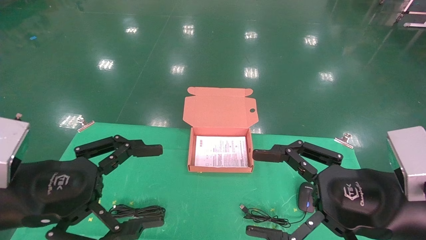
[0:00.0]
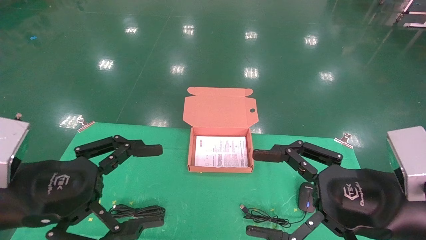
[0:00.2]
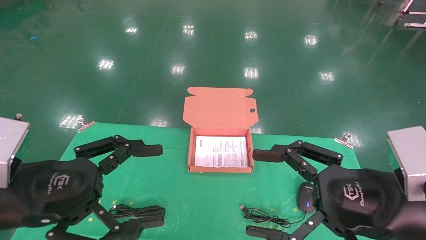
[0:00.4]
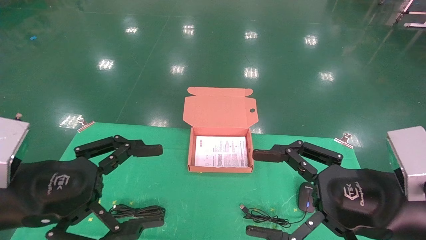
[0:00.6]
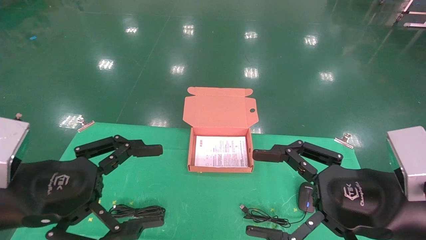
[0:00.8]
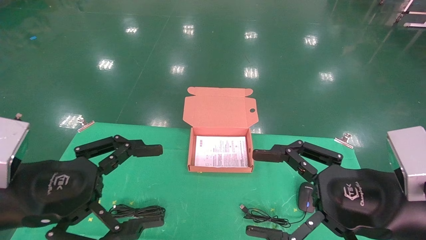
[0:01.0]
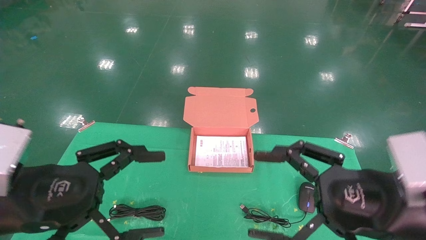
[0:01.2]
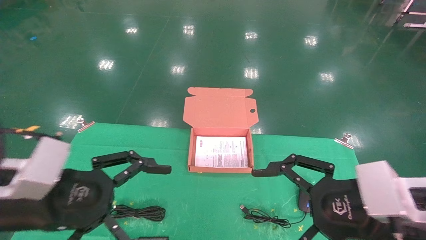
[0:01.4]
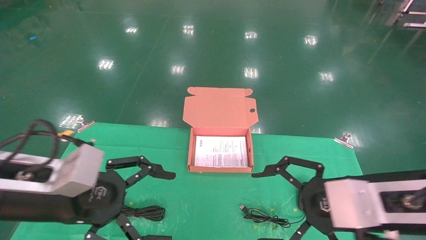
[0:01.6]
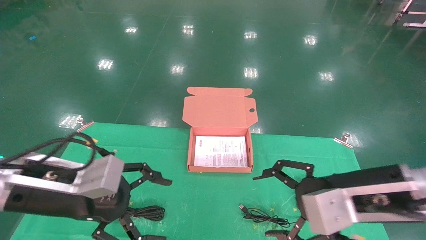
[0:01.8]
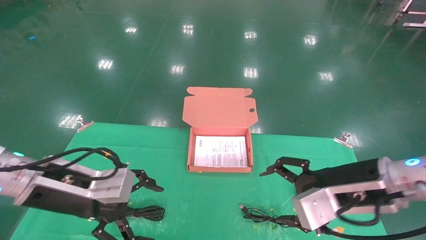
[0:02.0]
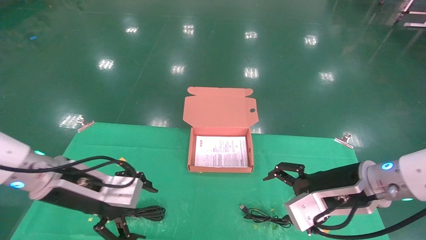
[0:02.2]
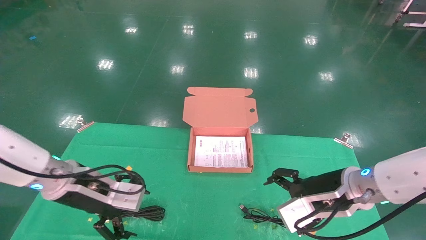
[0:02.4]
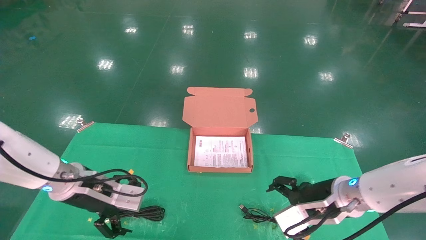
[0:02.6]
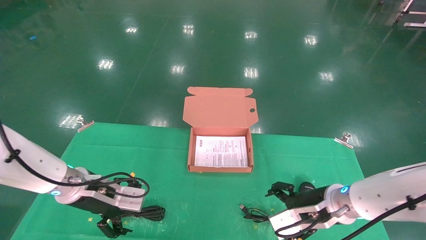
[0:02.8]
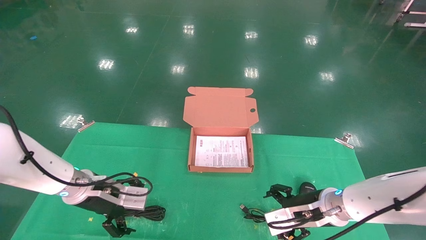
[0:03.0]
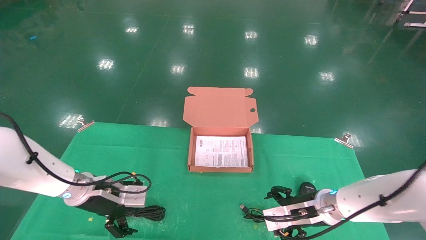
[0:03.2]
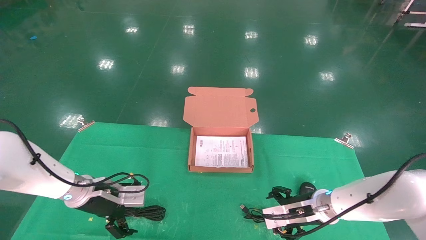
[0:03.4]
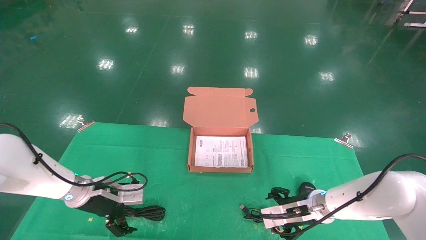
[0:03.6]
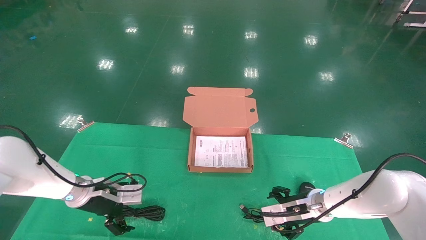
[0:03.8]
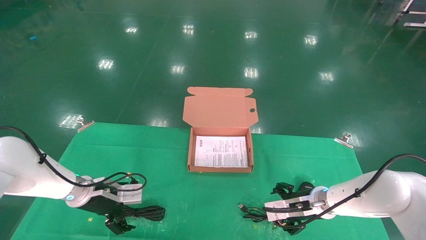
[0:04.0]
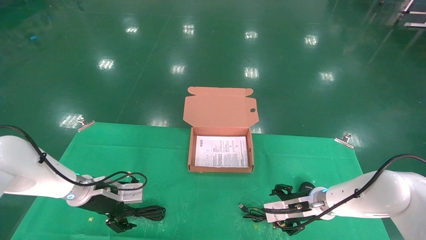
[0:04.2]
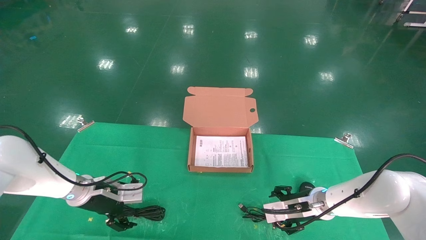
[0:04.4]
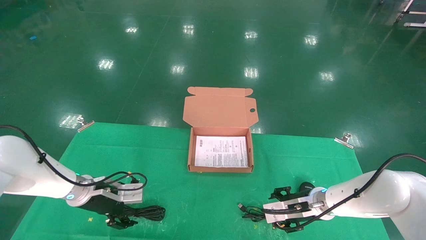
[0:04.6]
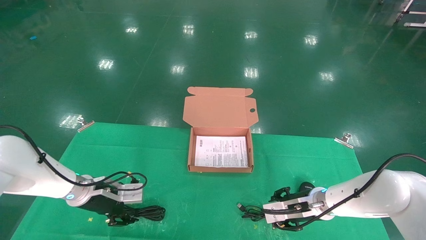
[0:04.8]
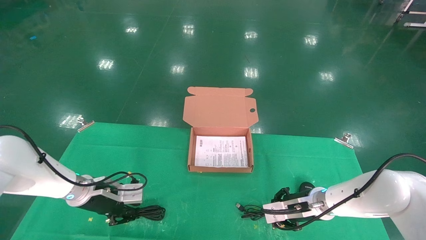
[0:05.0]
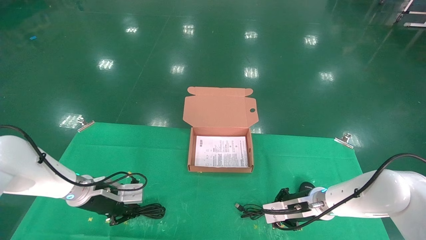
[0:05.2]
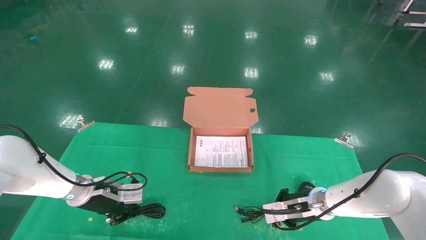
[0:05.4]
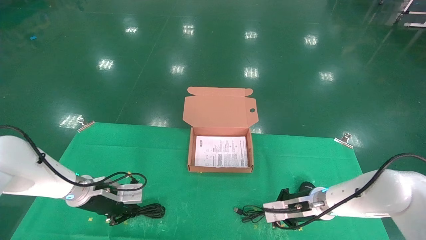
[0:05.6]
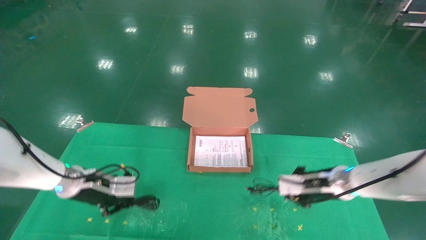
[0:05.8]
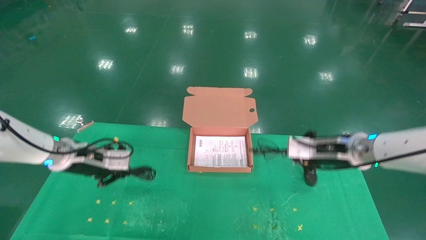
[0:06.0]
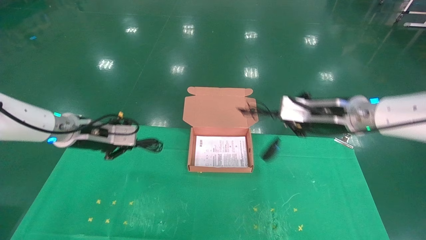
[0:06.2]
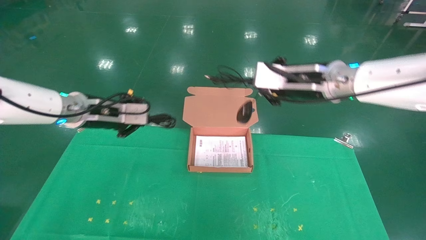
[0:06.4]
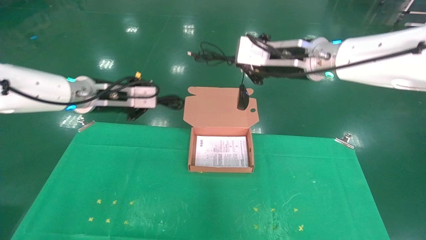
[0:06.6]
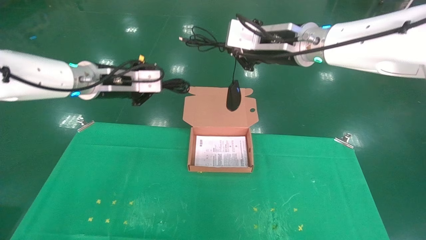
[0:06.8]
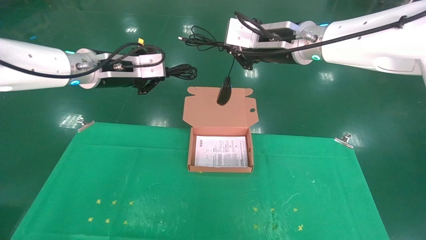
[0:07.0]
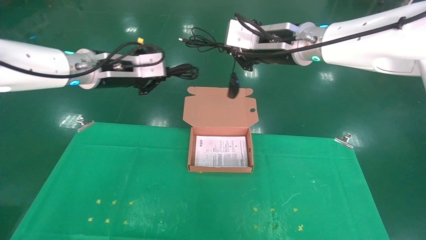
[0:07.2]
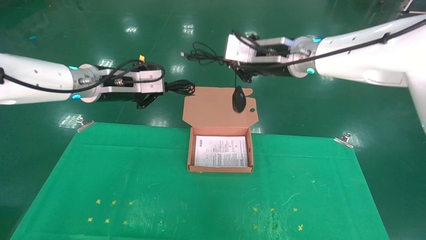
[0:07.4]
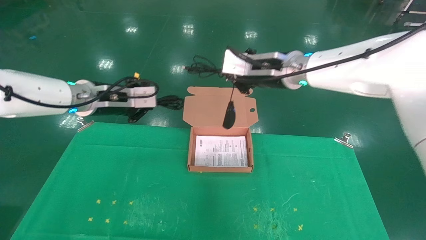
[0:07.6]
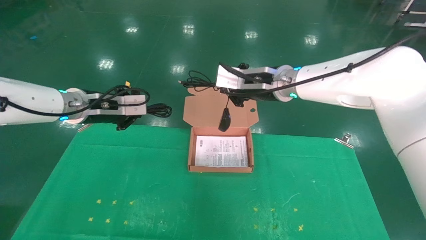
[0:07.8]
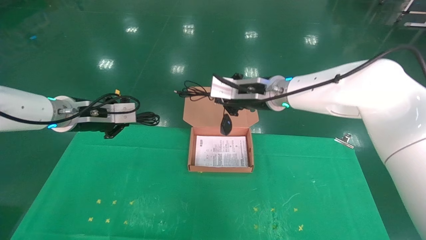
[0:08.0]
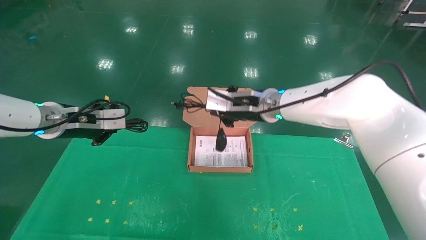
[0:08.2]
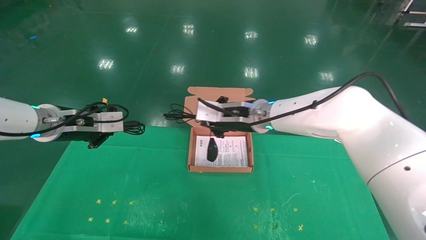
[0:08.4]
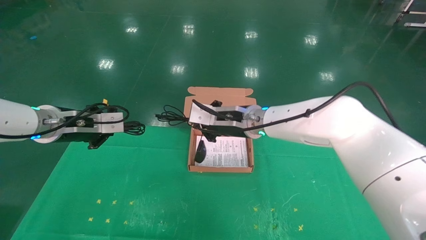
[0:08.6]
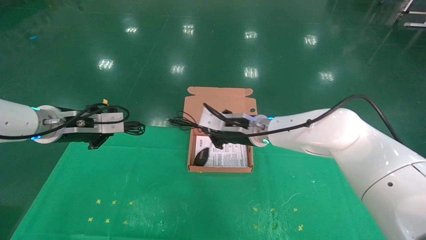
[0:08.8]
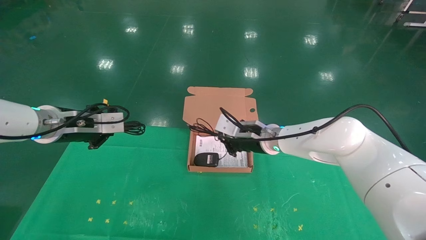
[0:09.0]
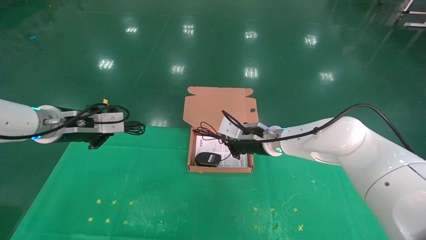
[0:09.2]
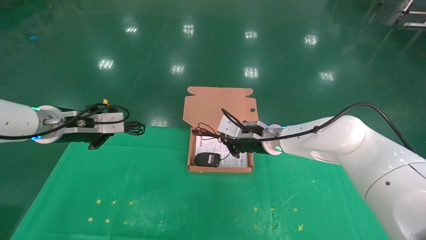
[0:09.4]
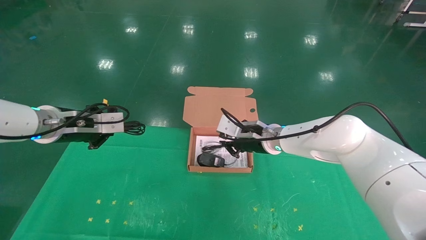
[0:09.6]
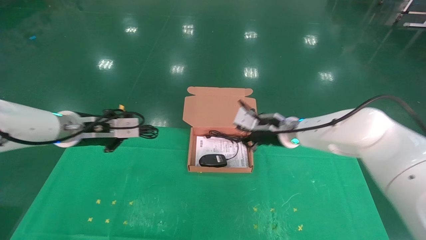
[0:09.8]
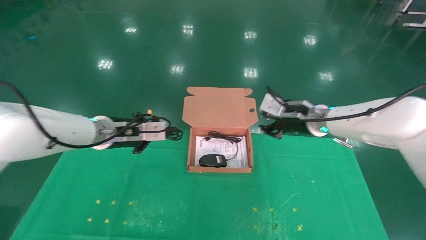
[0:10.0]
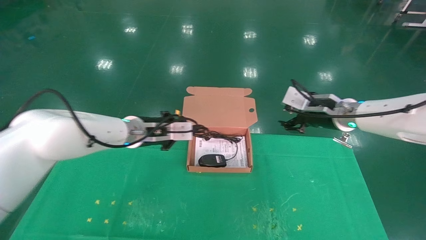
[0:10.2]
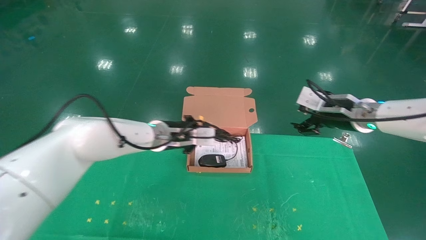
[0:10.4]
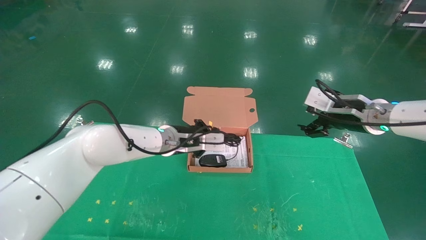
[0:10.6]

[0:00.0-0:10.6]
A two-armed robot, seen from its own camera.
Task of the whole recording: grasp data cable left put into box grasp mouse right put into box.
Step, 0:01.0 to 0:05.4: Grab and pick up both the mouse and power cord from the accessory packaging area at the same time.
0:01.6 to 0:03.0: Both grippers travel together forward and downward, roughly 20 cm.
0:03.0 to 0:04.6: Both grippers move forward and downward, roughly 10 cm.
0:04.6 to 0:06.0: Both grippers move upward, roughly 15 cm. The left gripper closes. Meanwhile the right gripper closes.
0:06.0 to 0:07.6: The right gripper is displaced to the left and upward by roughly 15 cm. Meanwhile the left gripper travels upward by approximately 10 cm.
0:07.6 to 0:09.0: The left gripper moves to the left, roughly 5 cm. The right gripper goes about 15 cm downward.
0:09.0 to 0:10.6: The two grippers go some 20 cm to the right. The right gripper opens.

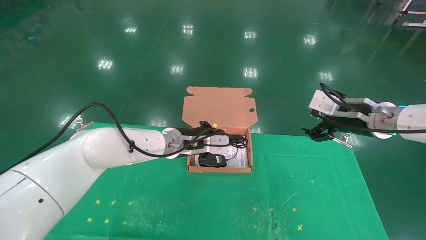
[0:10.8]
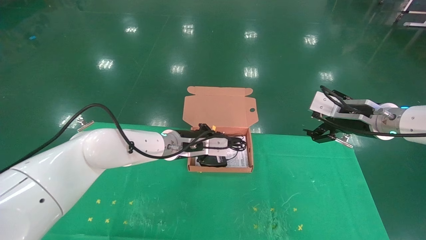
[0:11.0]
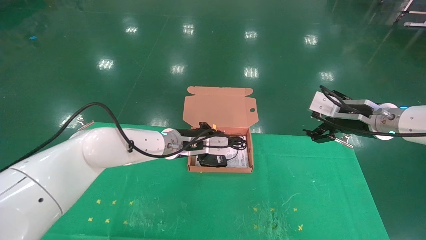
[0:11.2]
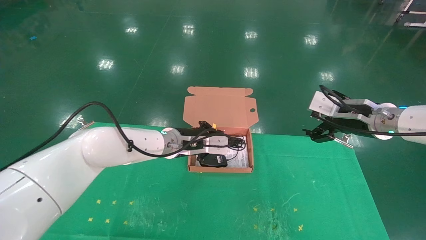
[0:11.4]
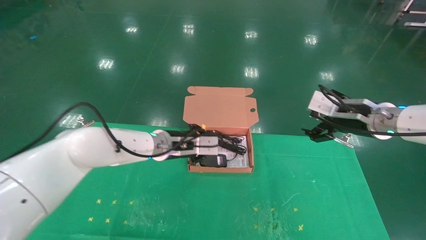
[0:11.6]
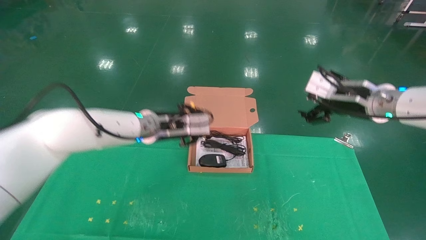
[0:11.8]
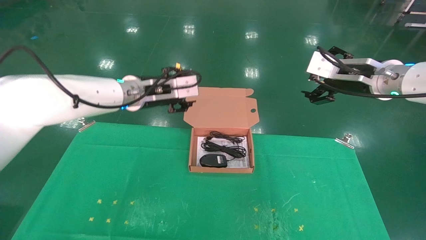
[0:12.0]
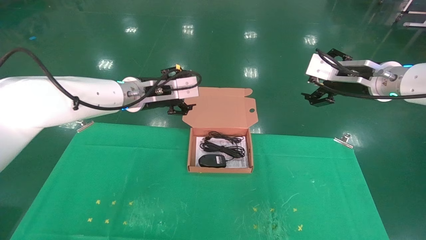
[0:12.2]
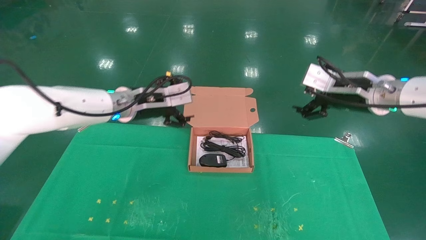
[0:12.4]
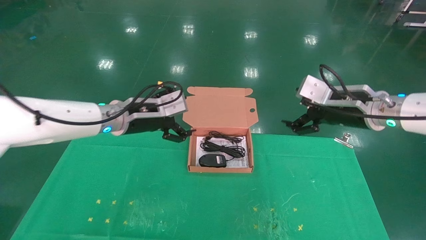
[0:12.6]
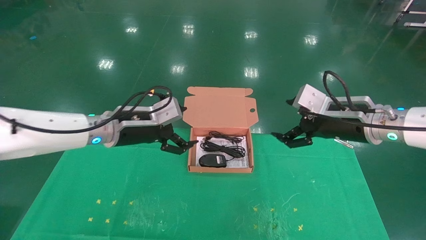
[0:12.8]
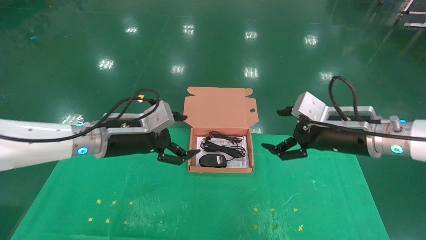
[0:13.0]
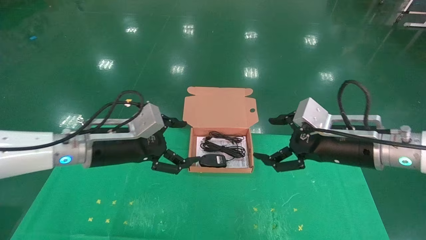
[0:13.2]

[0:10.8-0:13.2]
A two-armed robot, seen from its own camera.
Task of the whole recording: grasp data cable left put into box grasp mouse right put into box.
0:10.8 to 0:12.0: The left gripper heads upward and to the left, covering some 15 cm, and opens its fingers. Meanwhile the right gripper shifts some 5 cm upward.
0:12.0 to 0:13.2: The left gripper travels backward, downward and to the left by roughly 15 cm, and opens its fingers. Meanwhile the right gripper is displaced downward and backward by about 10 cm.

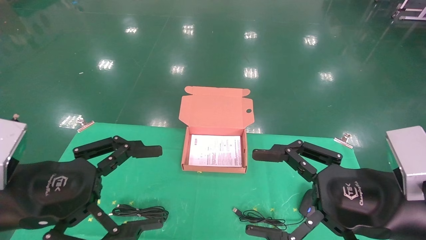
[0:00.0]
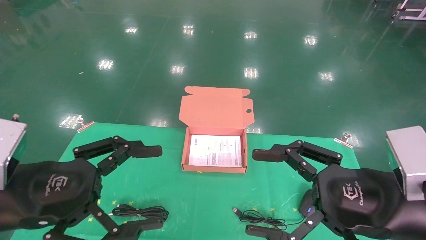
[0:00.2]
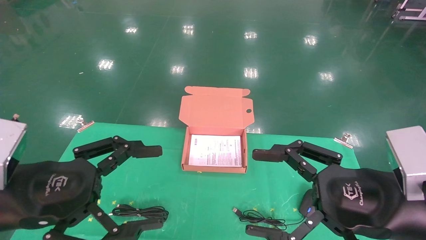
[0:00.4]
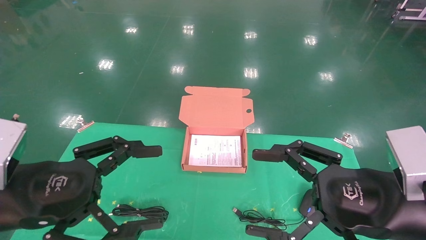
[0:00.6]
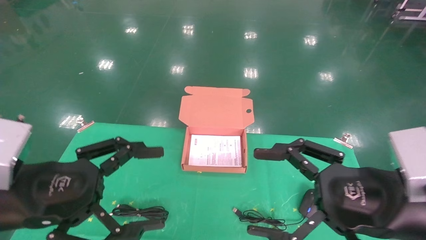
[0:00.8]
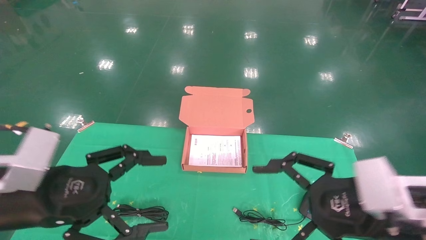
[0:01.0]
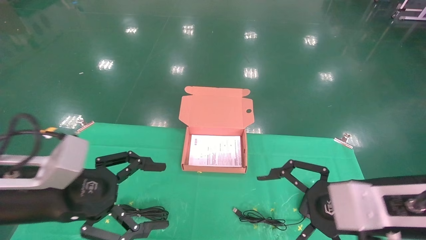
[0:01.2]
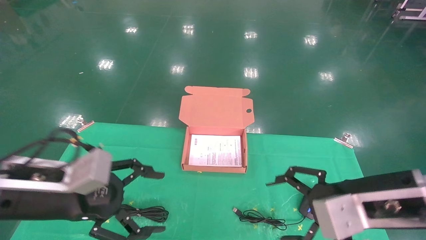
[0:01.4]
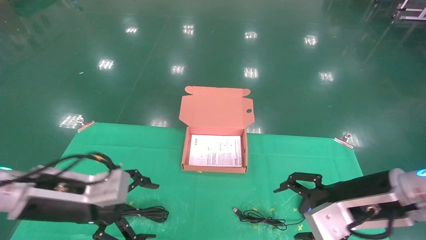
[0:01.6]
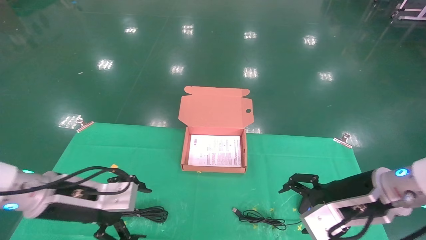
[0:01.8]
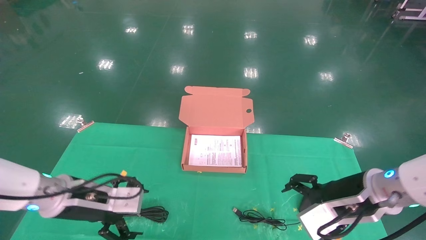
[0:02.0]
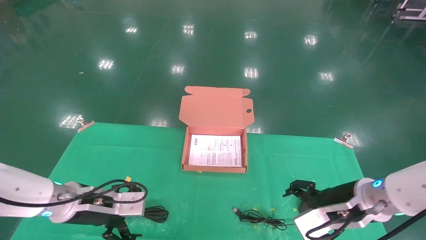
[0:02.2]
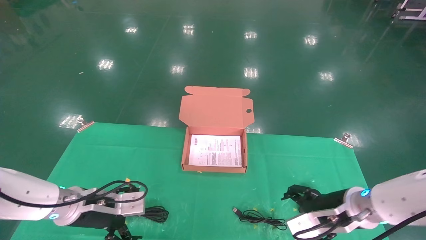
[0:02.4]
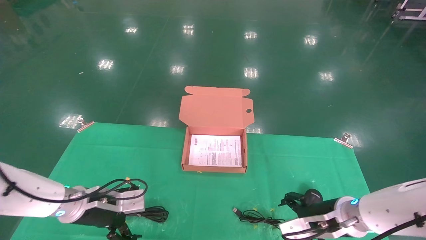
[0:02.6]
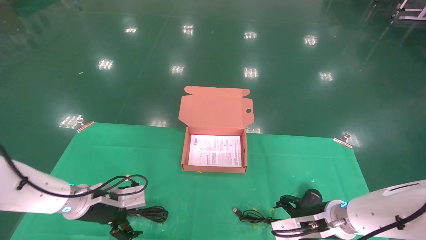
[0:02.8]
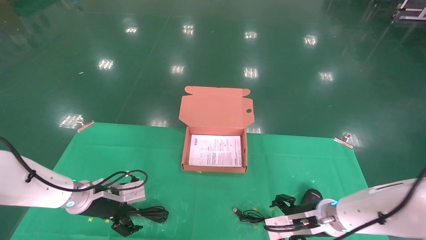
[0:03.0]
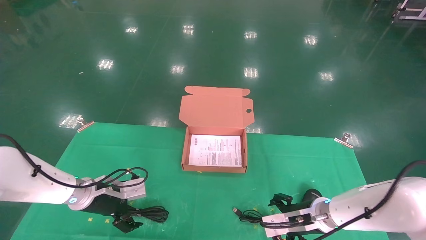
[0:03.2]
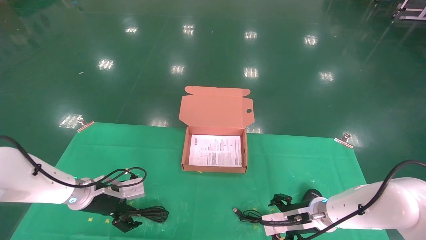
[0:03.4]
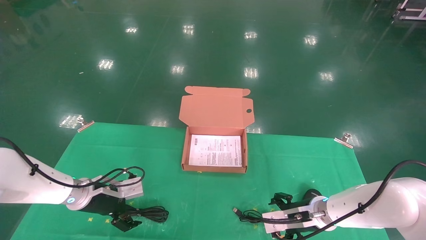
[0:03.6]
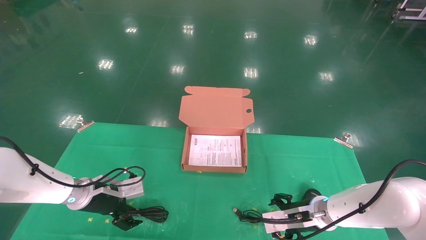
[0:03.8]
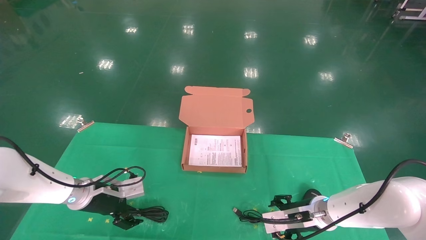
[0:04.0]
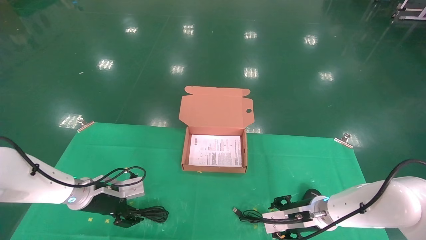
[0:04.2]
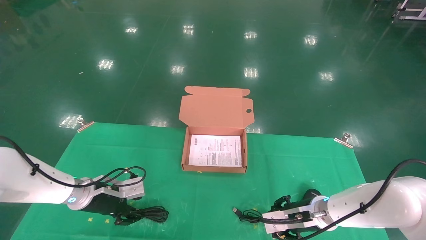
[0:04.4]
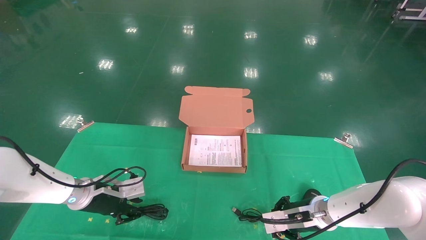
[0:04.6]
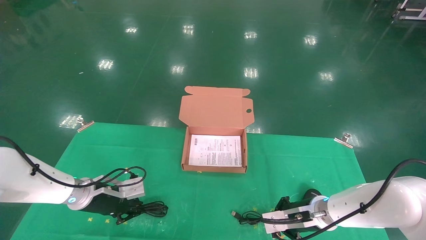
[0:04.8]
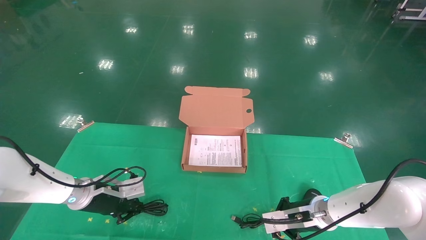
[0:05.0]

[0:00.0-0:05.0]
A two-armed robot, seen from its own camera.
Task of the whole recording: grasp data cable left put into box grasp mouse right put into box.
0:00.0 to 0:01.6: The grippers both shift forward by roughly 10 cm.
0:01.6 to 0:03.4: The left gripper shifts some 20 cm forward and downward, while the right gripper shifts some 20 cm downward and forward.
0:03.4 to 0:05.0: The left gripper closes, while the right gripper closes.
